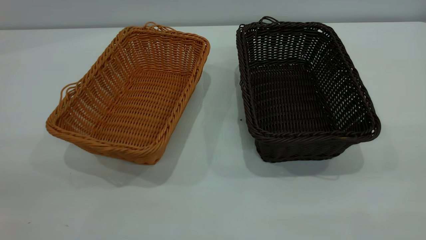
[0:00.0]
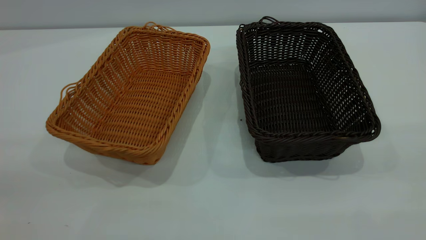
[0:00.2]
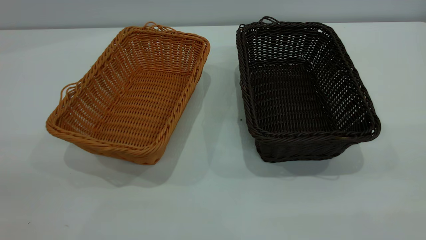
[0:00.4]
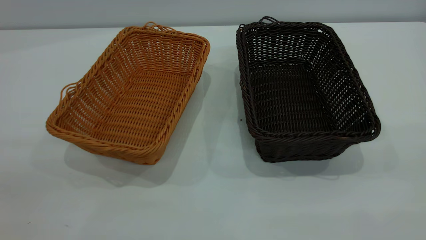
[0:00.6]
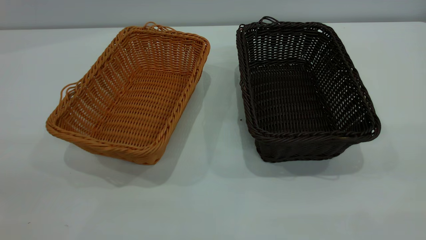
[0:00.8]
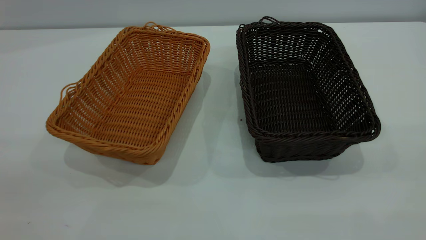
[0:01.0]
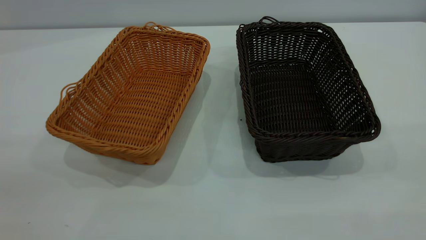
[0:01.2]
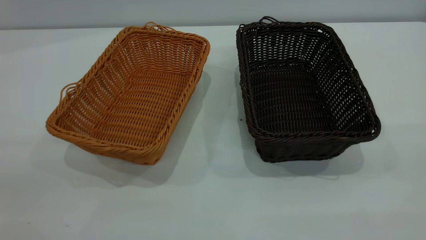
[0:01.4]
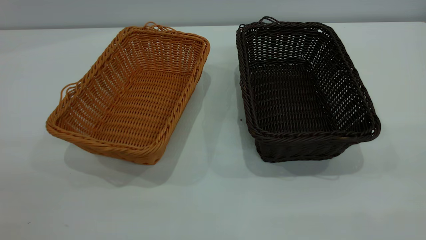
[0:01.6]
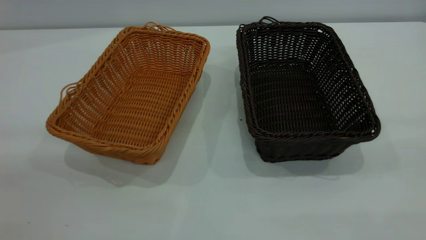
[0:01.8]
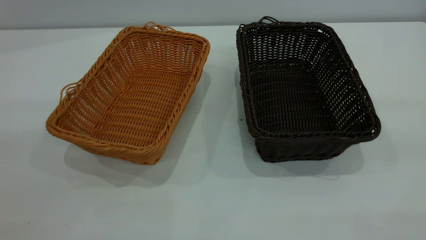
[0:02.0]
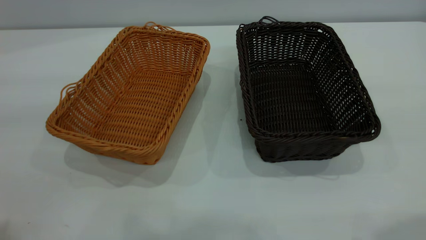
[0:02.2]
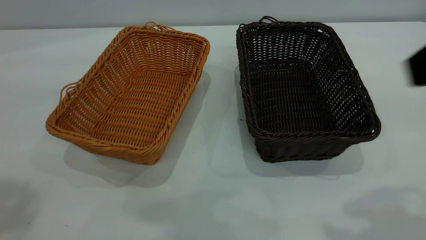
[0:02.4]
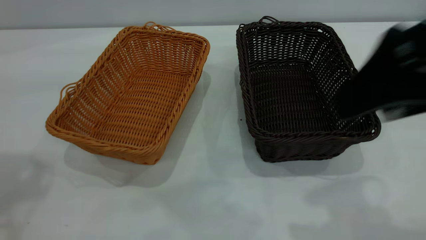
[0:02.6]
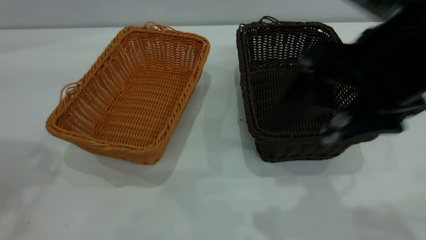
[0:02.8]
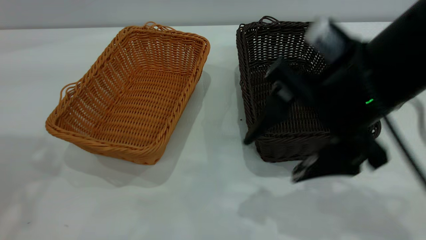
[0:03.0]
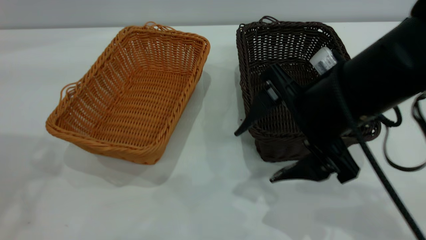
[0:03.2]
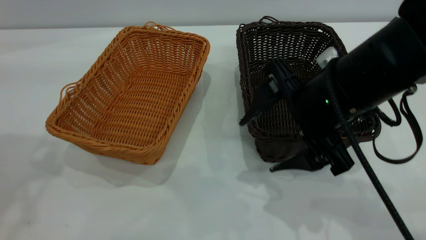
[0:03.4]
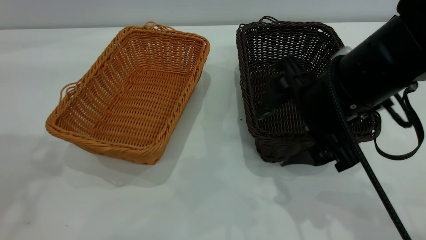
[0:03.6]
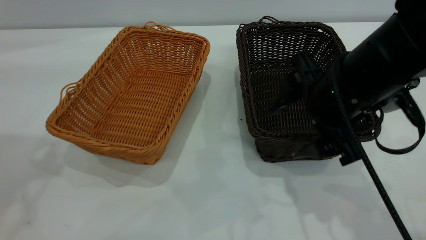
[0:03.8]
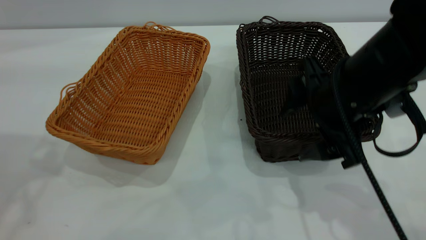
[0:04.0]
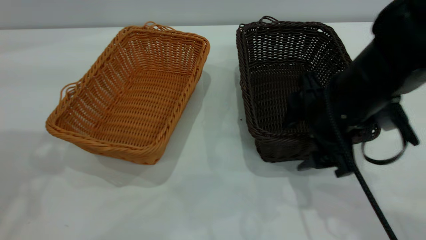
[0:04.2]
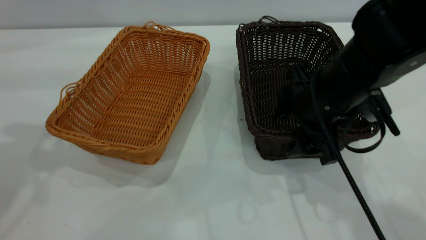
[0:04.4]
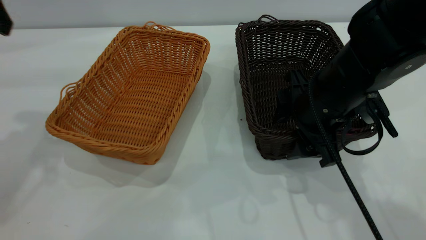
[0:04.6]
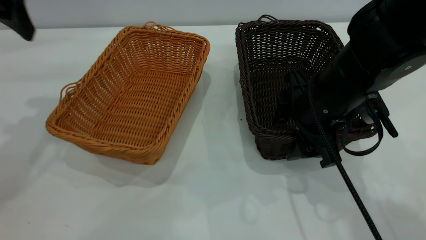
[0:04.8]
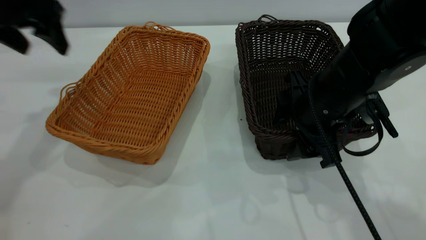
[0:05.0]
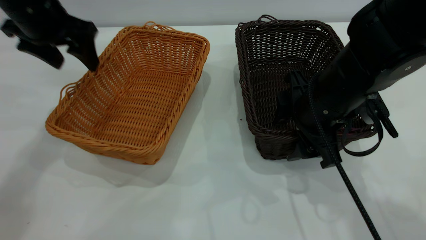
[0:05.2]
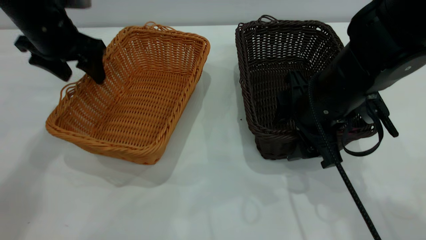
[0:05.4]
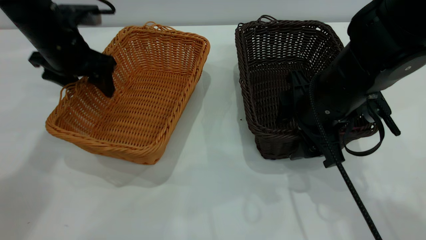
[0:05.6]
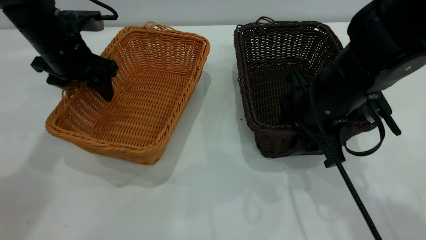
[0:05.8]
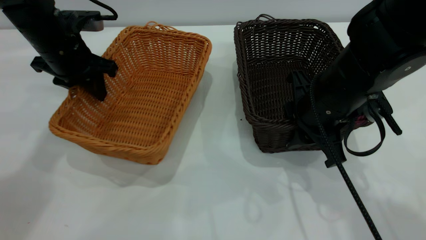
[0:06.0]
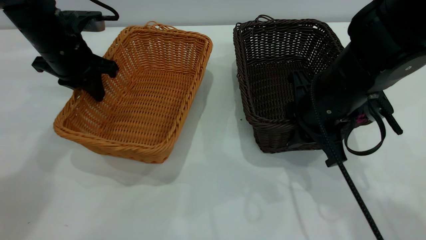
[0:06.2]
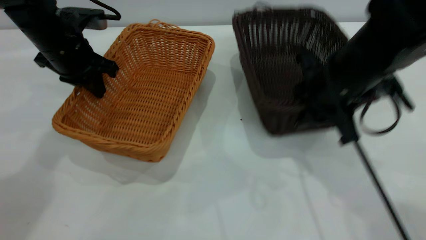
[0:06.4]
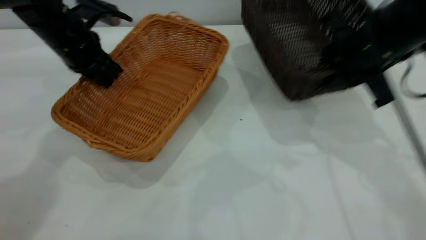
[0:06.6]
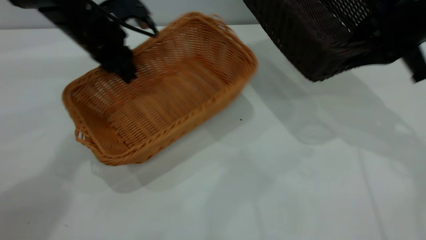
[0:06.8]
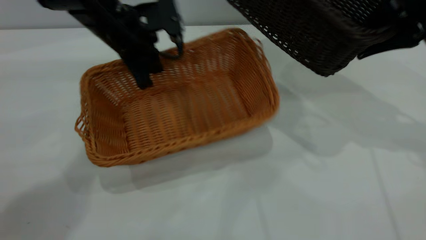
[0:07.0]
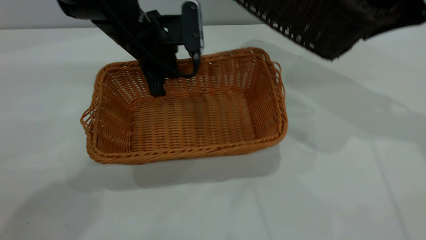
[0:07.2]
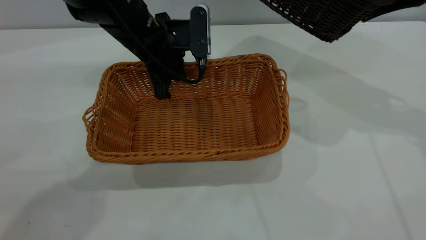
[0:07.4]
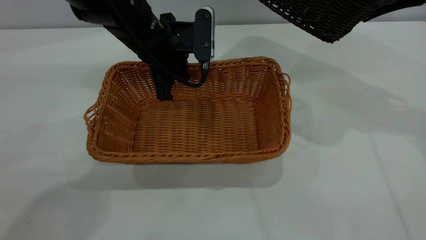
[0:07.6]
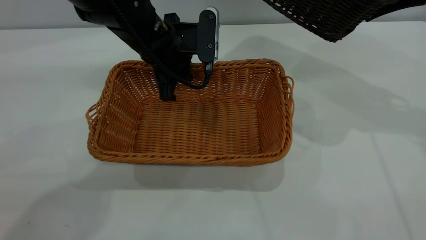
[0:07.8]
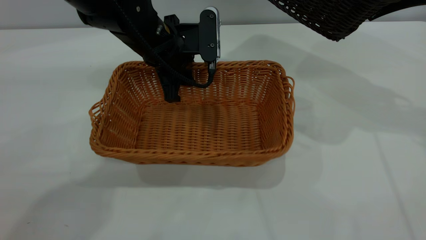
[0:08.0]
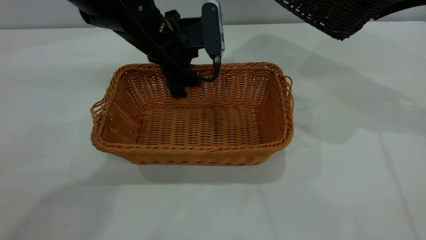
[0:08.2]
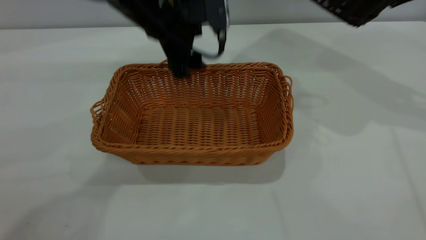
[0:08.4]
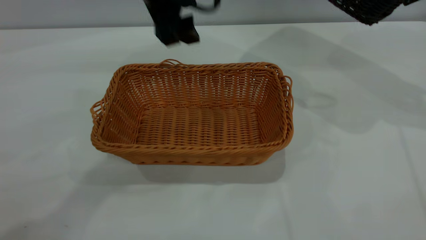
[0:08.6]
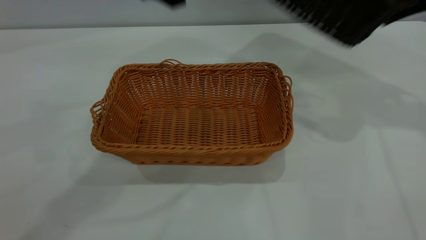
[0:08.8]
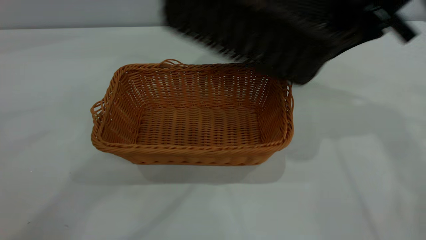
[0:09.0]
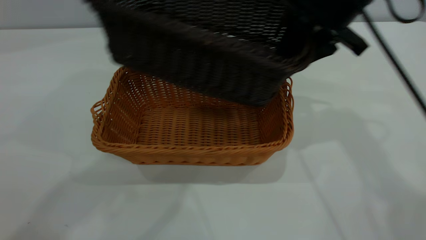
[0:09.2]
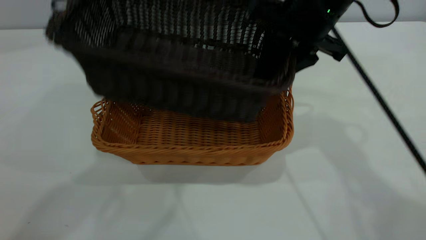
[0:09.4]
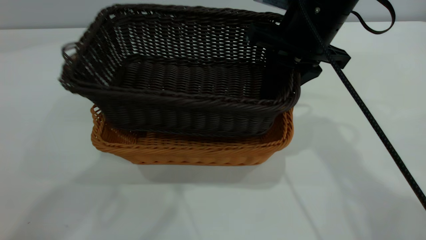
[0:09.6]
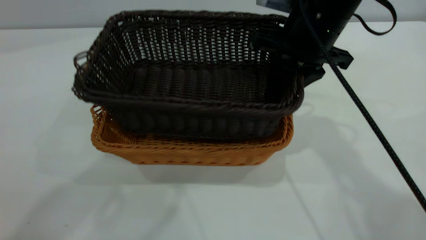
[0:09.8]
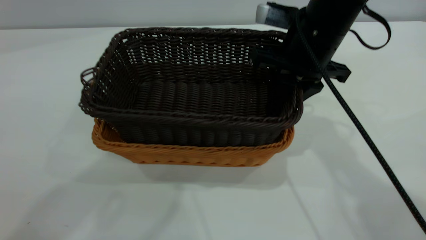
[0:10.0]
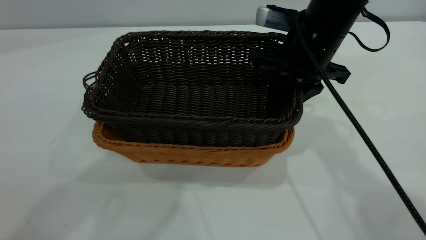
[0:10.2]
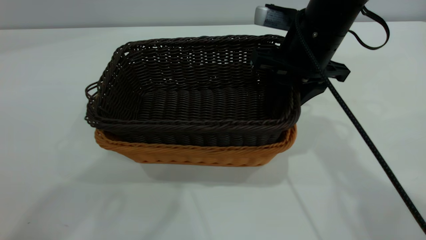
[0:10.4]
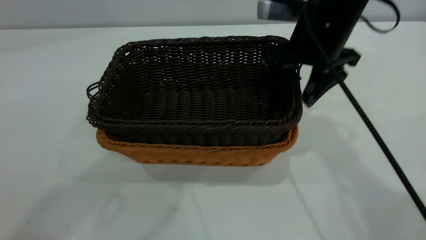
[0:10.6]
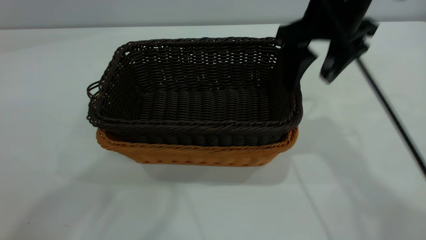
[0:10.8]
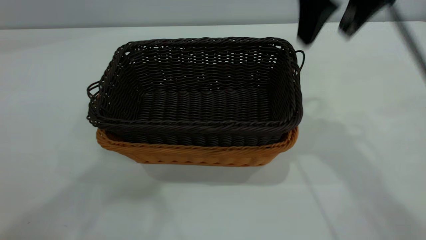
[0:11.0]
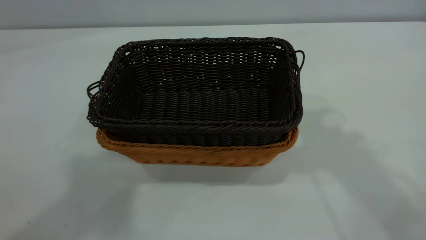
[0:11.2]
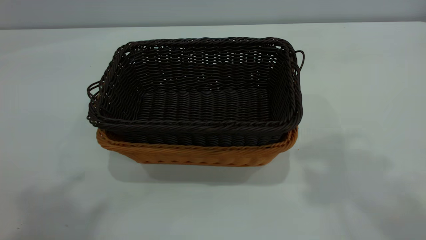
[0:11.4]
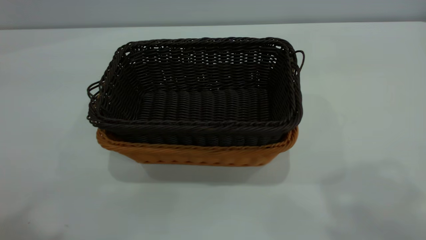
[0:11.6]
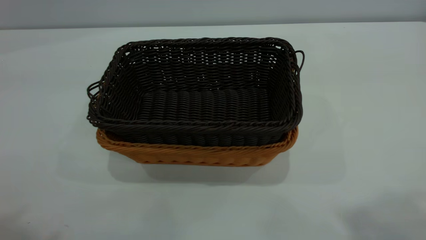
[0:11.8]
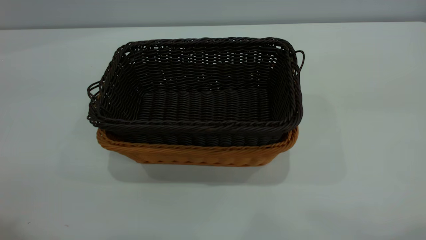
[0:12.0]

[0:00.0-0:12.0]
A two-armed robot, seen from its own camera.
Task of the whole recording: the left gripper grasp the brown basket and place it in the center of the table, the right gripper grasp the black basket and place it inside the brown one.
Step, 0:00.0 to 0:06.4: Pick up the light basket with the right gripper.
Step, 0:06.6 to 0:08.4: Place the light-colored basket in the center.
Step, 0:08.6 to 0:10.8: Place the dark basket on top of the light basket.
0:00.0 to 0:01.6: Neither gripper changes place.
0:01.6 to 0:03.0: The right gripper is displaced forward, downward and to the left by some 30 cm.
0:03.0 to 0:04.4: The left gripper moves roughly 5 cm. Meanwhile the right gripper goes approximately 10 cm downward and forward.
0:04.4 to 0:06.0: The left gripper goes roughly 20 cm downward and forward, and closes, while the right gripper closes up.
0:06.0 to 0:07.6: The right gripper travels upward, to the right and forward by about 20 cm. Meanwhile the left gripper is displaced to the right by approximately 15 cm.
0:07.6 to 0:09.0: The left gripper heads upward, covering some 30 cm, and opens its fingers, while the right gripper is displaced to the left by about 10 cm.
0:09.0 to 0:10.4: The left gripper travels upward by roughly 5 cm. Meanwhile the right gripper goes about 10 cm to the left and downward, and opens up.
0:10.4 to 0:12.0: The left gripper heads backward and to the left, covering about 20 cm; the right gripper travels upward, backward and to the right by about 40 cm, and opens.
